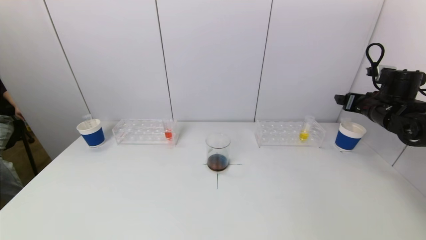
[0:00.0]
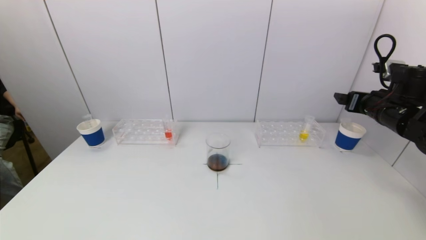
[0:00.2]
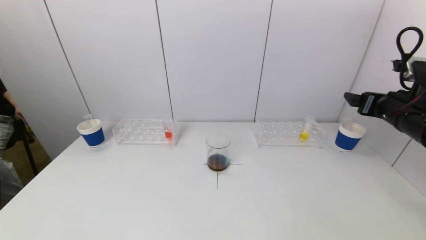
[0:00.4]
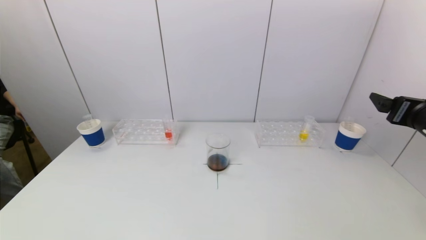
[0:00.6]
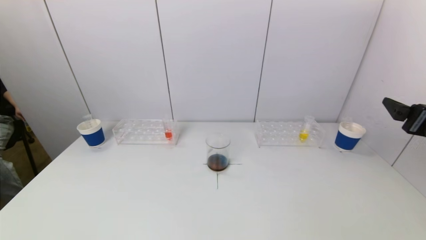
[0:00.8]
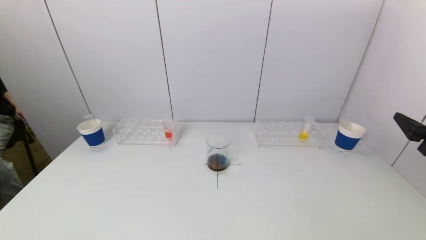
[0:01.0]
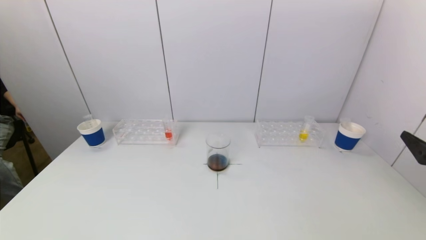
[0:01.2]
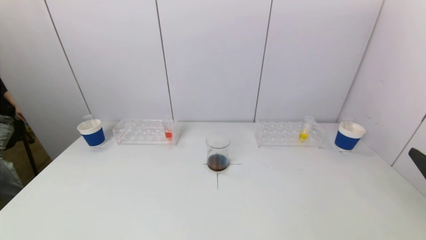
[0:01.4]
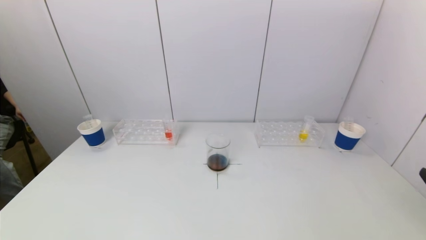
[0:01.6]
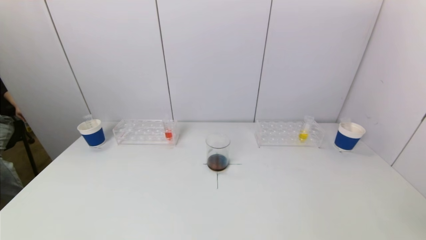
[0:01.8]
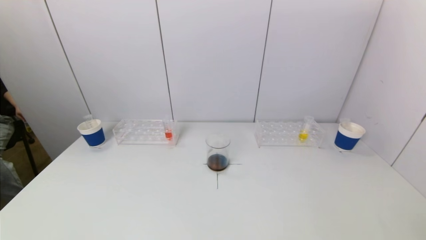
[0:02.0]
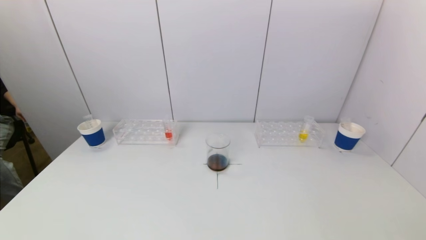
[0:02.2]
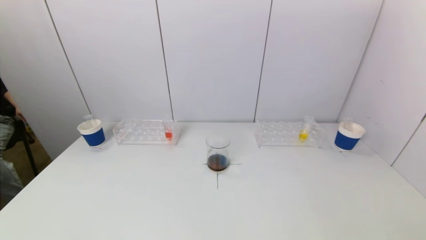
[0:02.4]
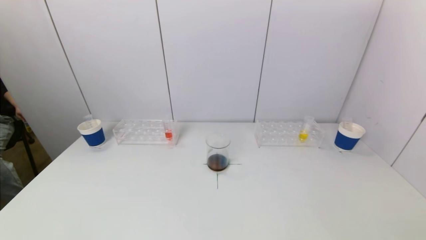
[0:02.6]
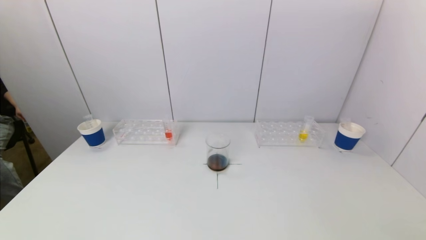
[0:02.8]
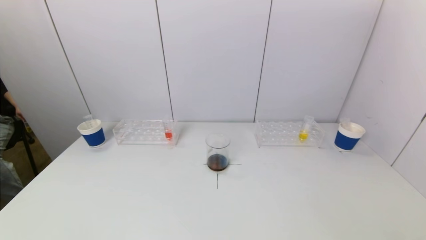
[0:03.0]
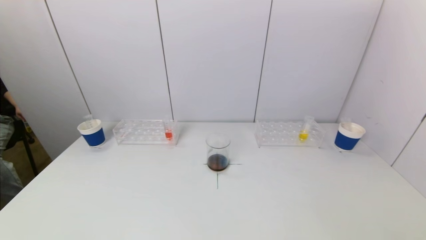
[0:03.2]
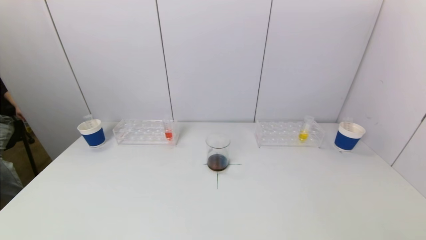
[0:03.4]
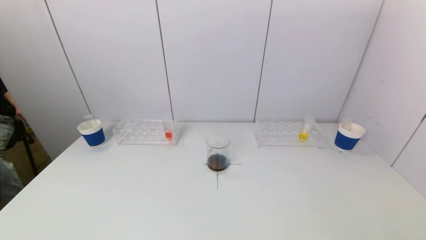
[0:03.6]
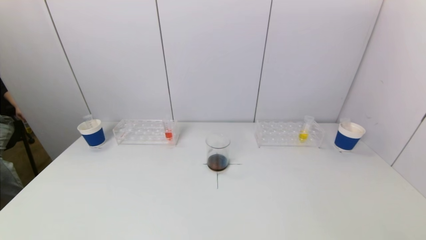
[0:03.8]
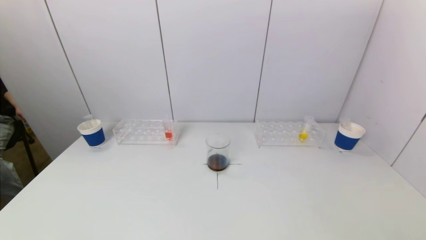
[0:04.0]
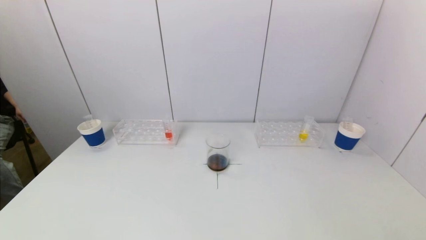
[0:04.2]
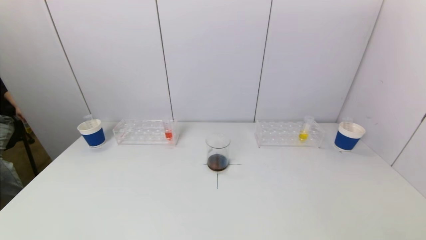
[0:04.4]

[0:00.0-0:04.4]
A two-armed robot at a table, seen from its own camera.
Task of the whole recording: pick up a test tube with pigment on left test tube rack and a test tube with pigment on right test tube rack by grippers and pour them into the beaker.
0:00.0 to 0:01.4: The right gripper is displaced backward by approximately 30 cm.
0:01.4 to 0:03.0: The right gripper moves backward and downward, roughly 15 cm.
0:03.0 to 0:04.4: Both grippers stay put.
